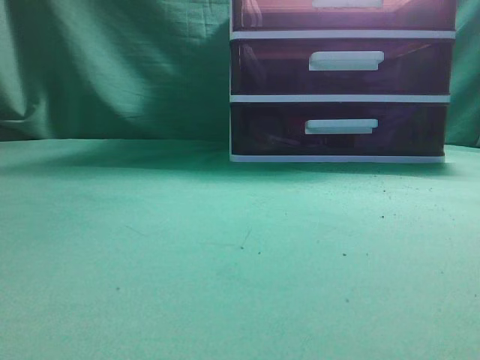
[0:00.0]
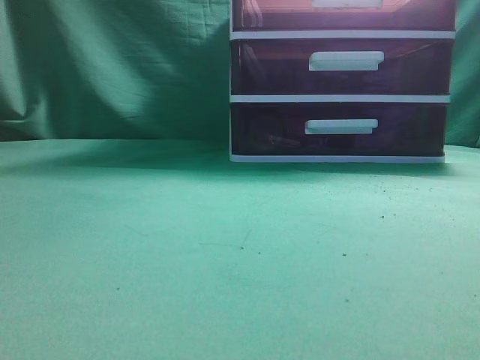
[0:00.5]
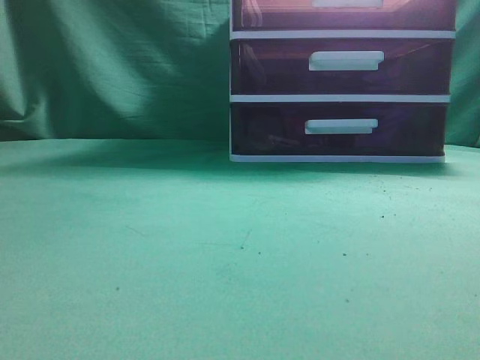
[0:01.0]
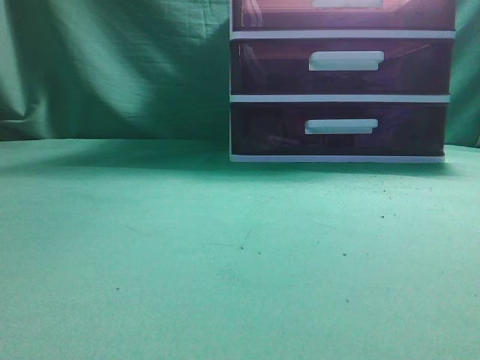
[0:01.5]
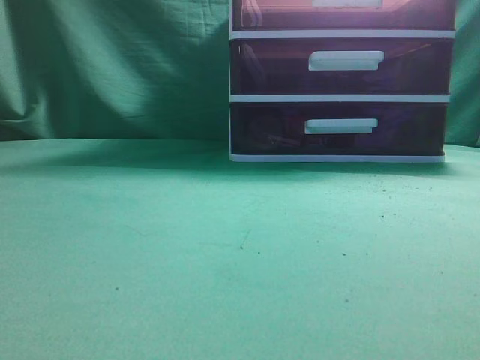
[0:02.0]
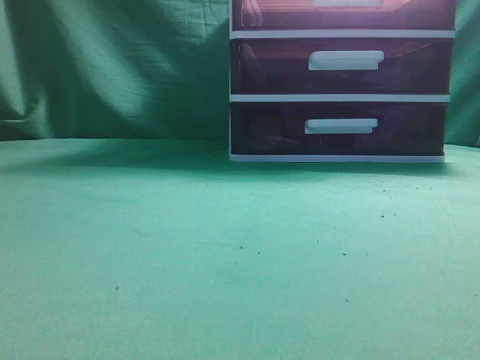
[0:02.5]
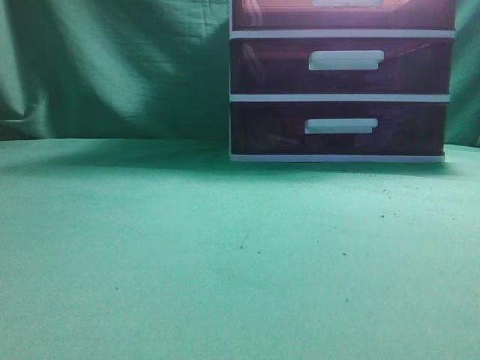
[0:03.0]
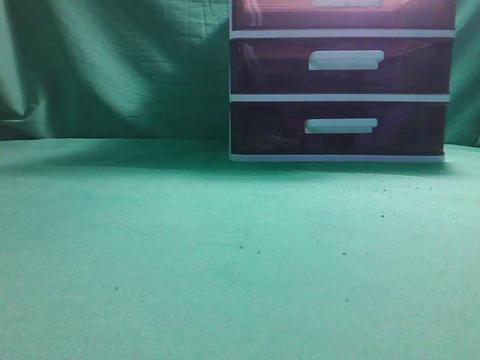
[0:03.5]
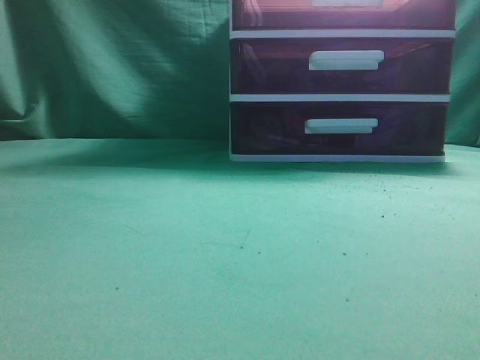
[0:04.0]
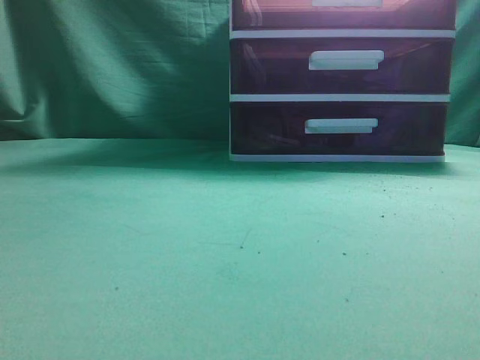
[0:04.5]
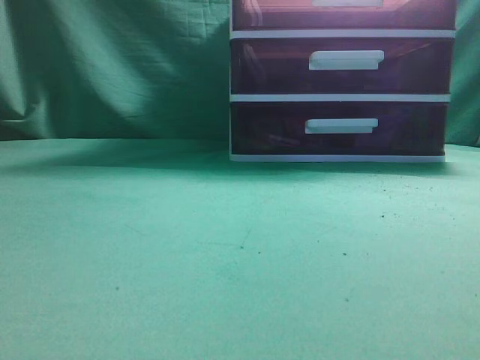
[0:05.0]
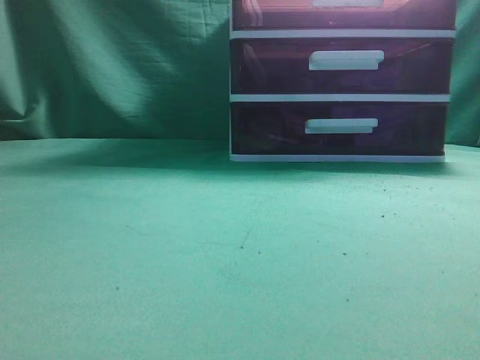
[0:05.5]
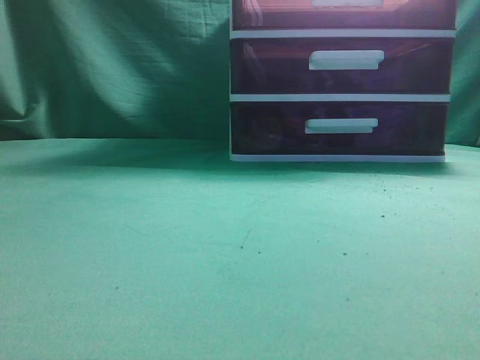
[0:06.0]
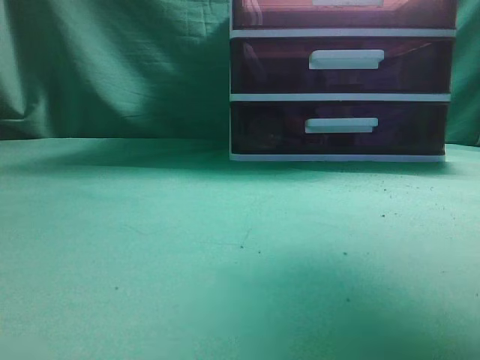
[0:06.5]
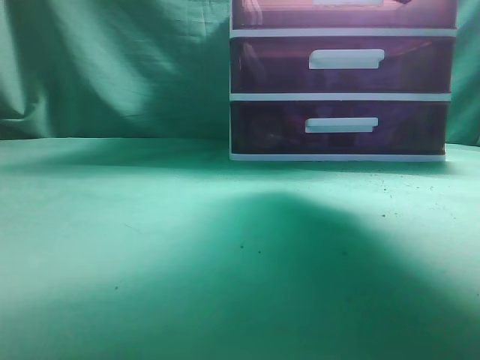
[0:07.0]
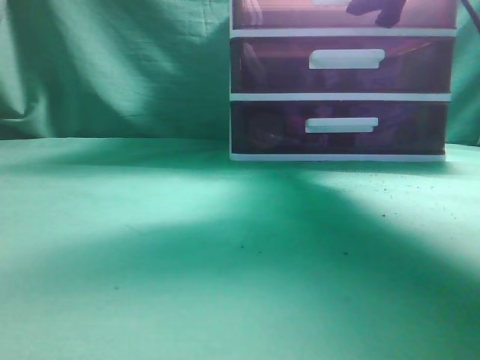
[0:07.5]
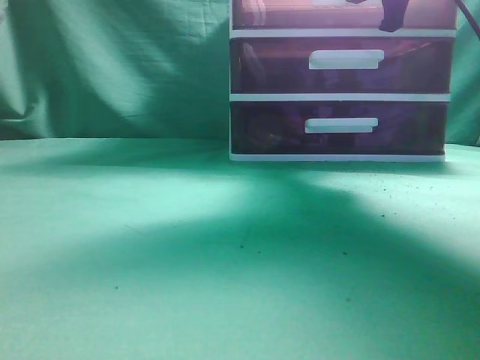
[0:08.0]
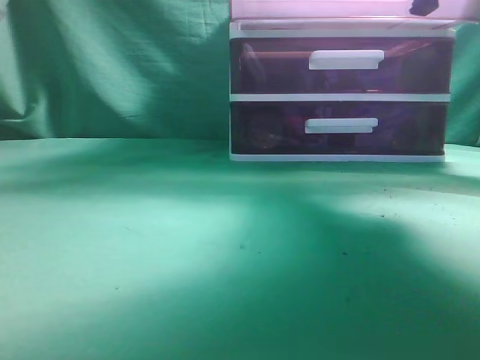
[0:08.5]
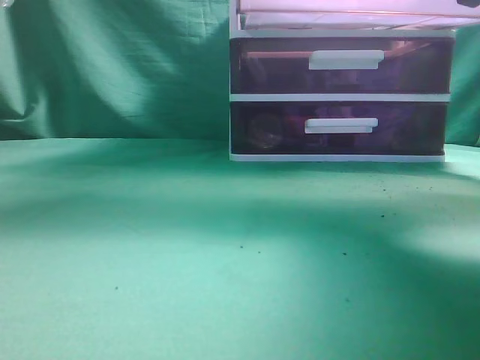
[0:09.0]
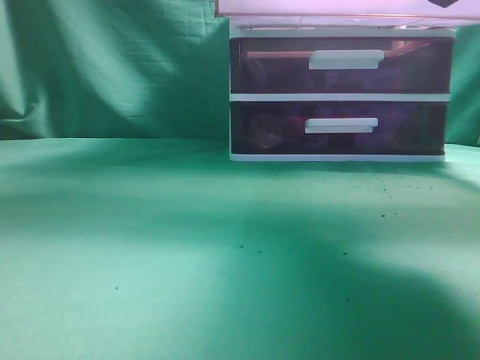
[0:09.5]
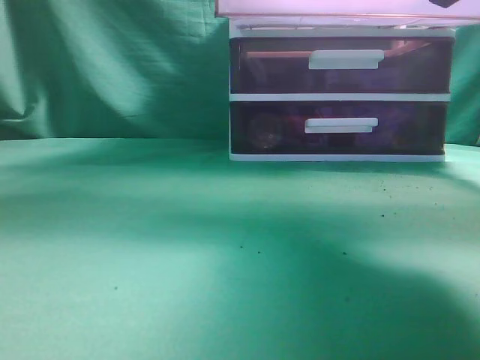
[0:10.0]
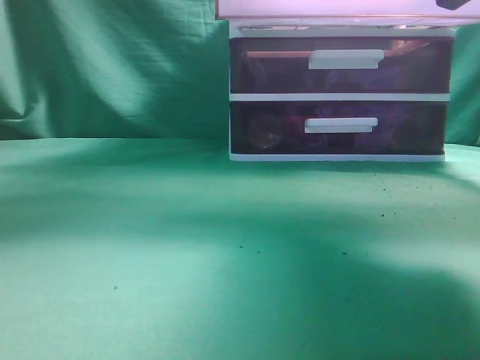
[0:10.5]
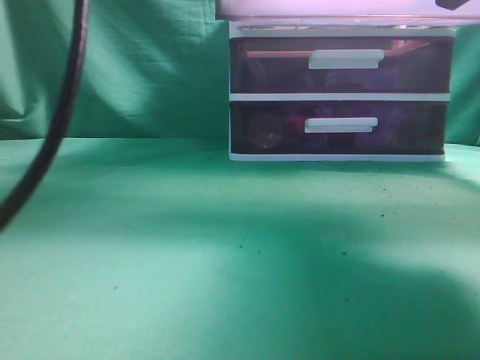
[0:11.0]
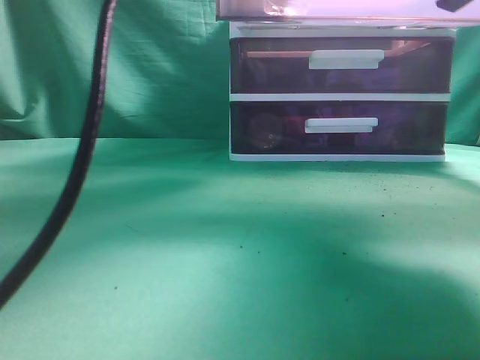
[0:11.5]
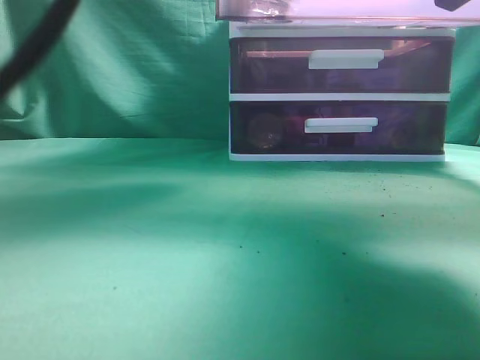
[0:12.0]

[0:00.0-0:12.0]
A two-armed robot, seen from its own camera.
Task of the whole recording: place the water bottle into the drawer.
Step, 0:00.0 to 0:09.0: Open the drawer.
0:06.0 to 0:08.0: The right gripper travels forward by roughly 25 cm, and opens, then closes again. The left gripper changes place by some 5 cm.
0:08.0 to 0:10.0: The left gripper moves upward, to the right and forward, roughly 20 cm. Meanwhile the right gripper moves backward, roughly 15 cm.
0:10.0 to 0:12.0: The left gripper travels to the right and forward by roughly 15 cm, and opens.

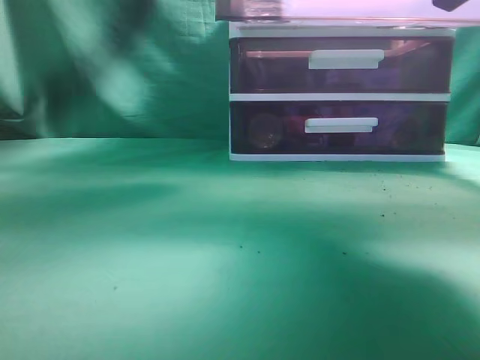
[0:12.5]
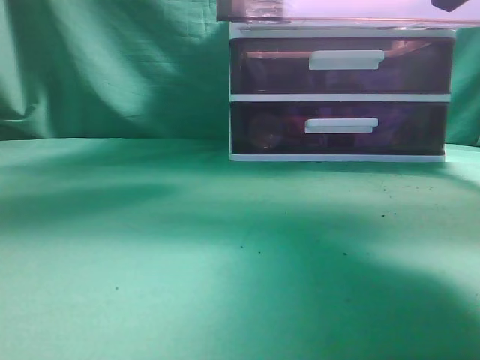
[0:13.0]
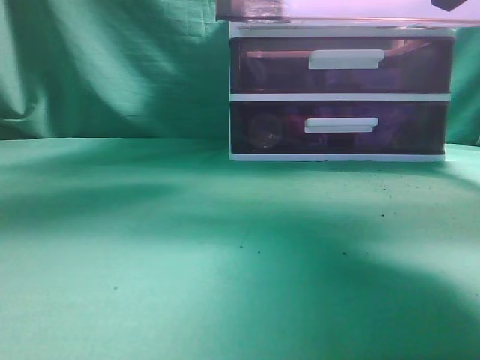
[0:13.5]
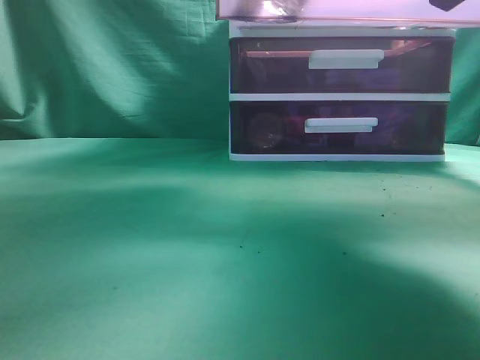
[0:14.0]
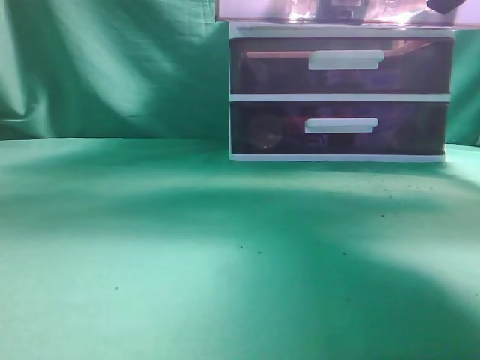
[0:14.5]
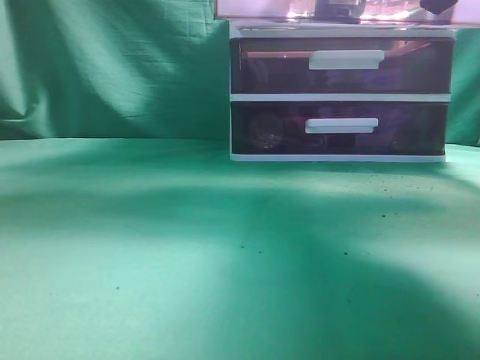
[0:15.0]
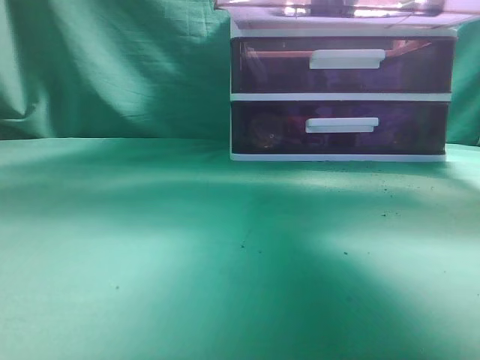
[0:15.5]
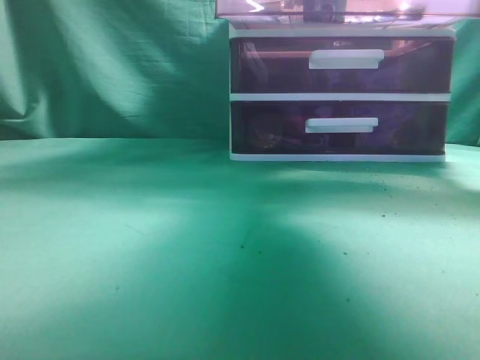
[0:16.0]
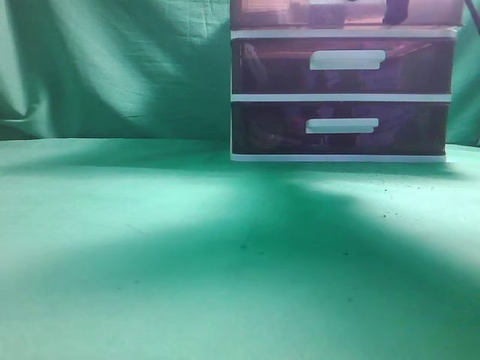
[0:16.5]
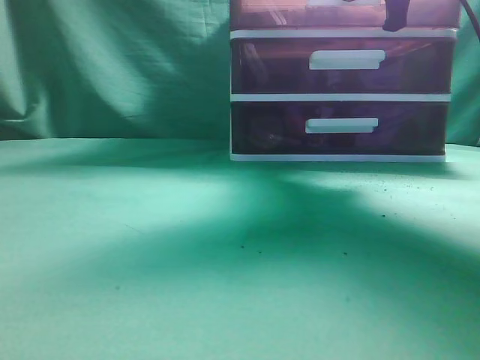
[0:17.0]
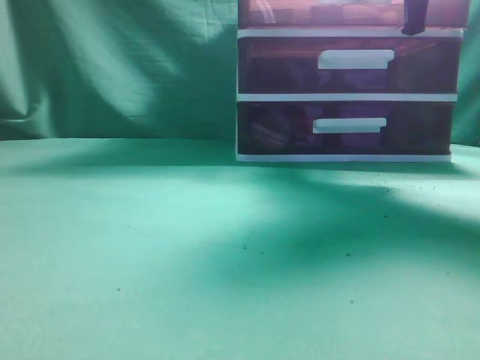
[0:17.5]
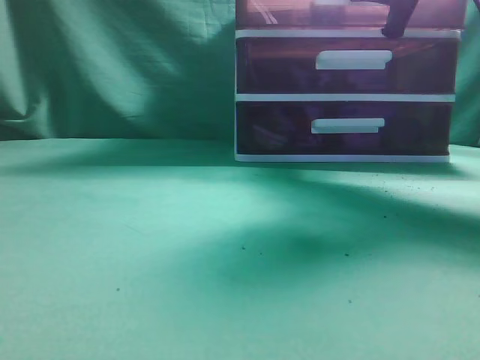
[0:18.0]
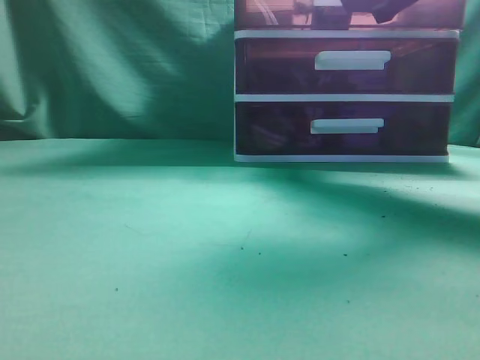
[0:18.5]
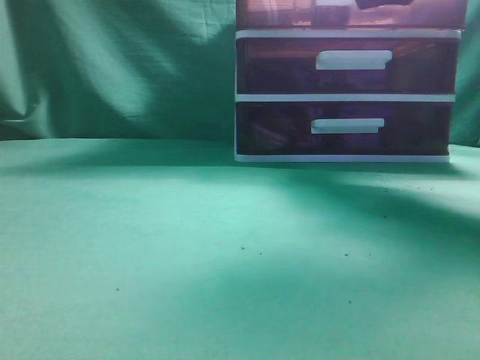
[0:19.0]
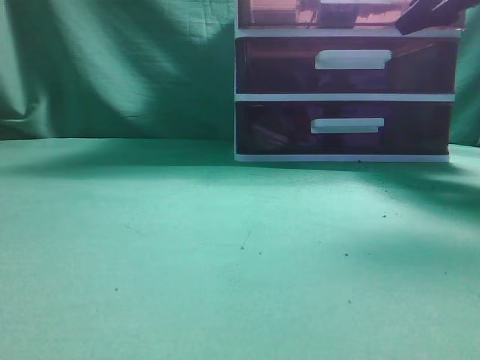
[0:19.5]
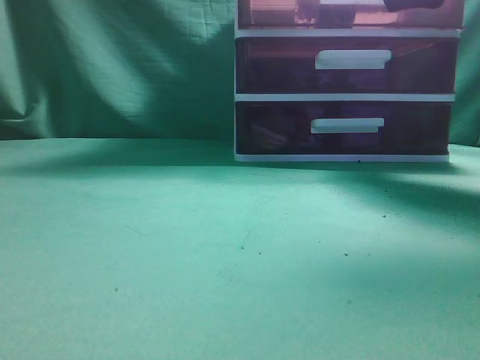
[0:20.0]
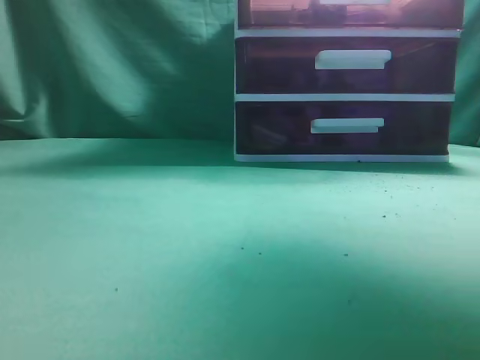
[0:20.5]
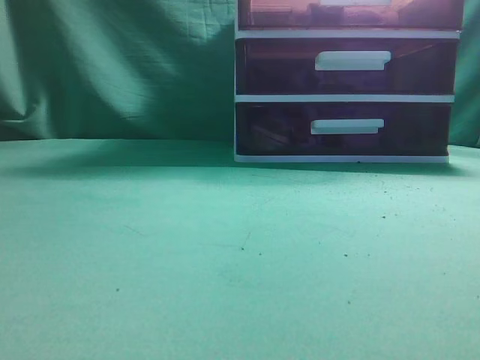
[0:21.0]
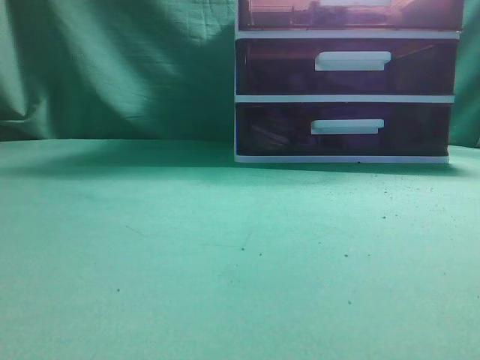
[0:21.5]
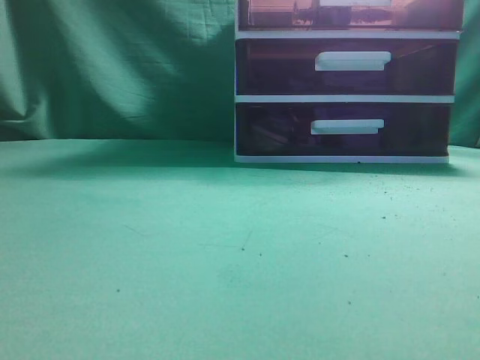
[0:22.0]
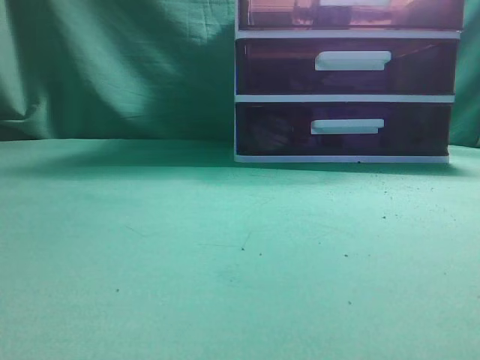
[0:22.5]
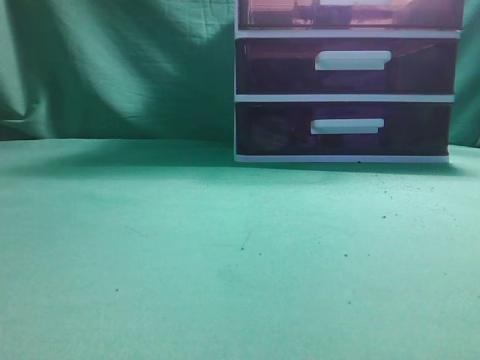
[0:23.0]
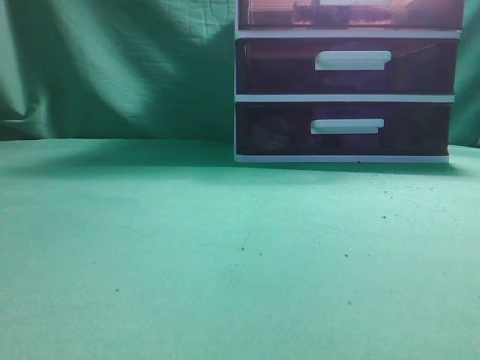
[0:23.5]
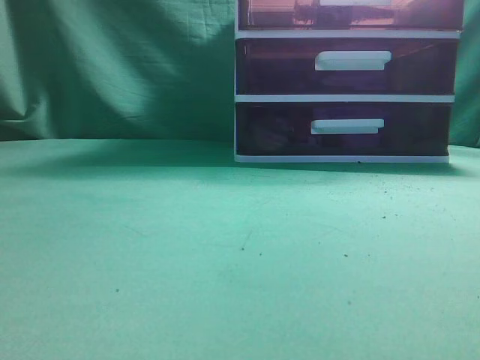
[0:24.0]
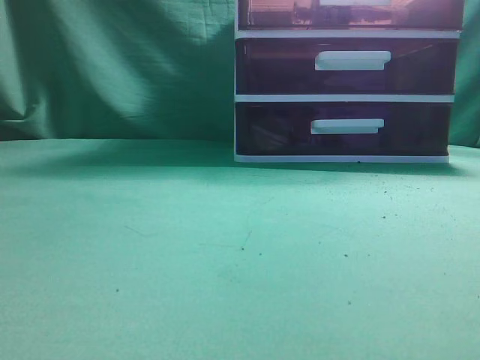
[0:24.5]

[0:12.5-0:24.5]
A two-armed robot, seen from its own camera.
Task of the whole recording: place the water bottle into the drawer.
Step, 0:12.5 to 0:14.5: Place the water bottle inside the drawer.
Step, 0:15.5 to 0:20.0: Close the drawer.
0:12.5 to 0:14.5: The left gripper moves up and down over approximately 15 cm, changing direction 2 times.
0:14.5 to 0:16.5: The right gripper goes about 15 cm forward. Meanwhile the left gripper shifts some 30 cm backward and to the left, and closes up.
0:16.5 to 0:18.5: The right gripper moves approximately 5 cm, and opens up.
0:18.5 to 0:20.5: The right gripper travels upward and backward by about 15 cm.
0:20.5 to 0:22.5: The left gripper moves downward, backward and to the left, some 20 cm, while the right gripper moves backward, roughly 35 cm, and closes its fingers.
